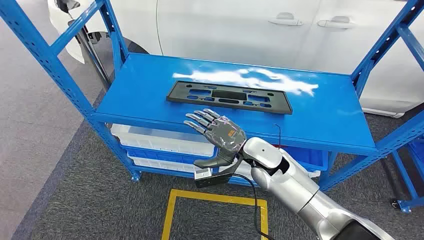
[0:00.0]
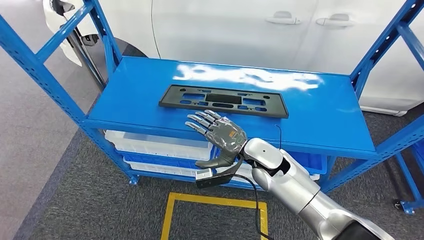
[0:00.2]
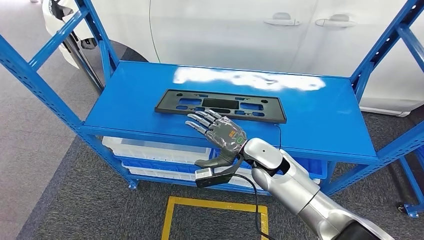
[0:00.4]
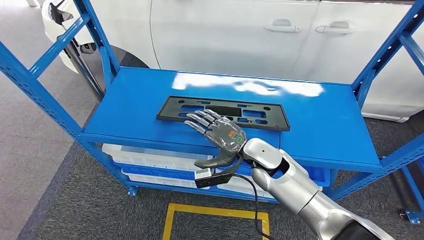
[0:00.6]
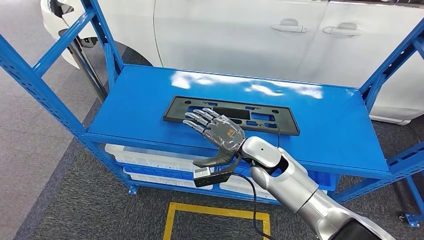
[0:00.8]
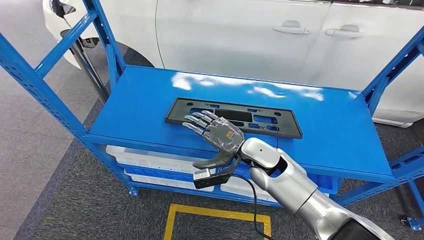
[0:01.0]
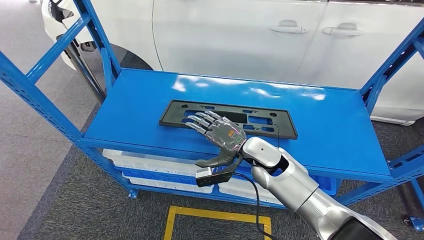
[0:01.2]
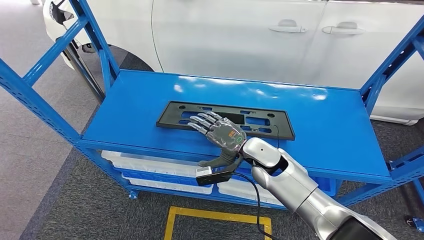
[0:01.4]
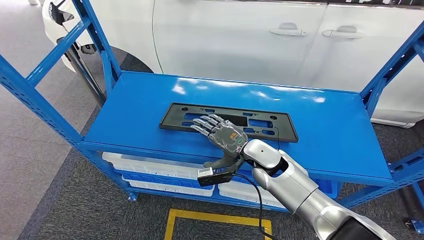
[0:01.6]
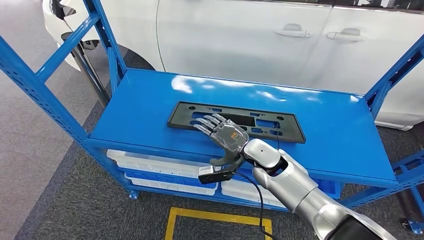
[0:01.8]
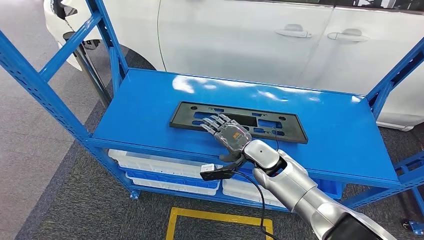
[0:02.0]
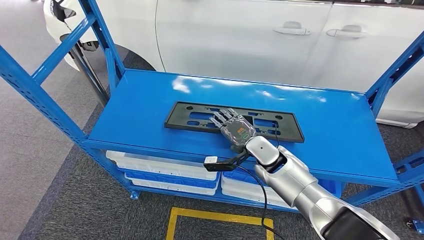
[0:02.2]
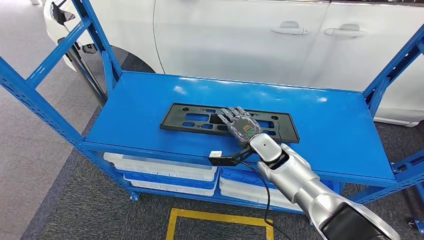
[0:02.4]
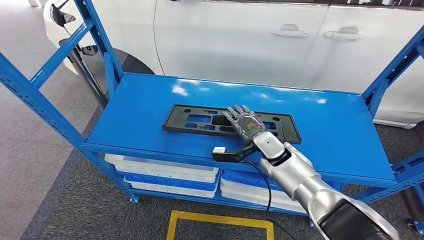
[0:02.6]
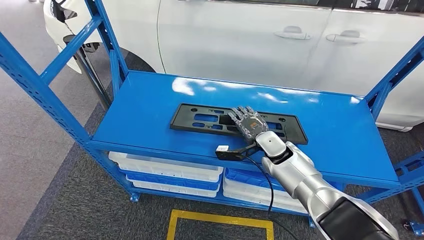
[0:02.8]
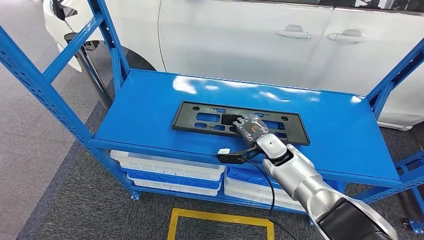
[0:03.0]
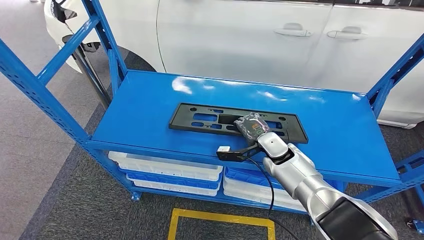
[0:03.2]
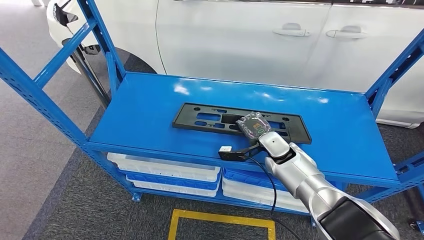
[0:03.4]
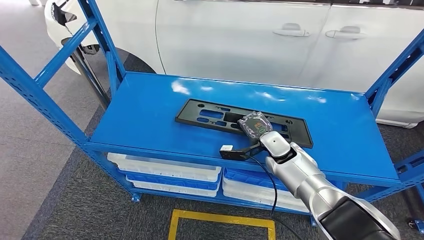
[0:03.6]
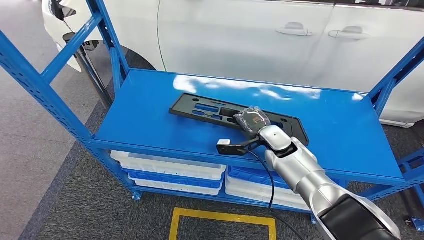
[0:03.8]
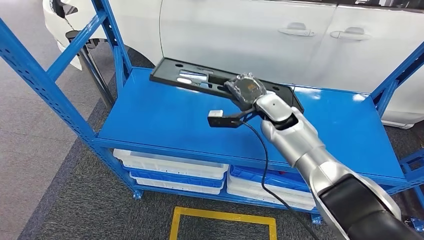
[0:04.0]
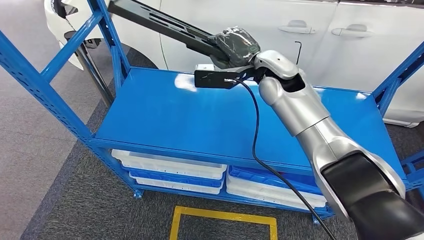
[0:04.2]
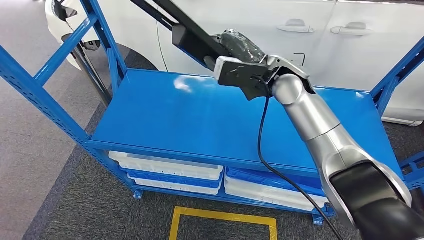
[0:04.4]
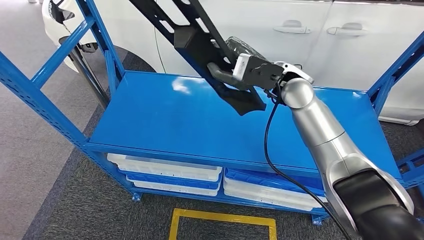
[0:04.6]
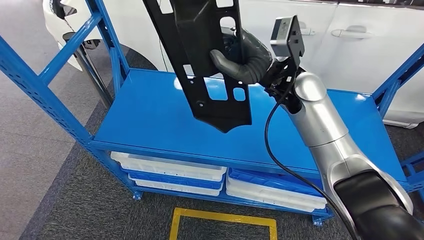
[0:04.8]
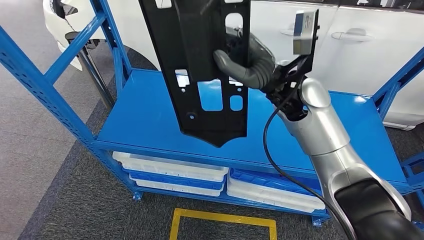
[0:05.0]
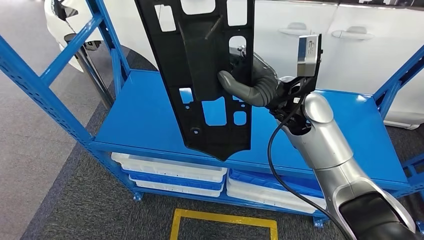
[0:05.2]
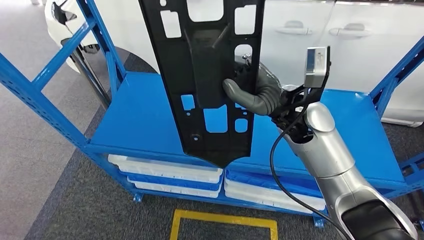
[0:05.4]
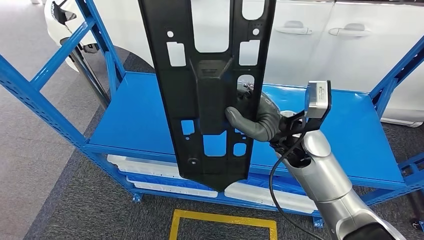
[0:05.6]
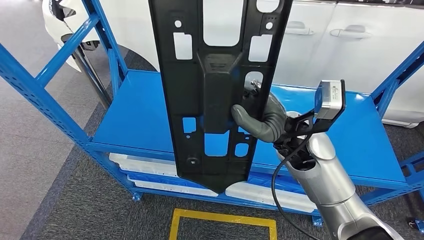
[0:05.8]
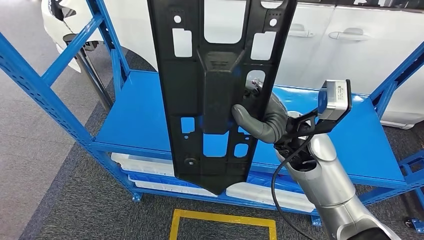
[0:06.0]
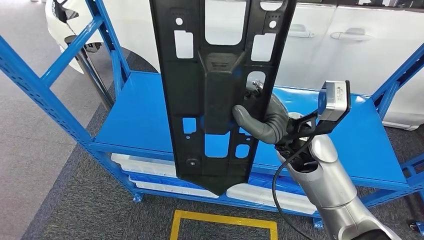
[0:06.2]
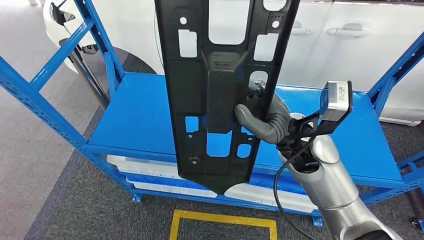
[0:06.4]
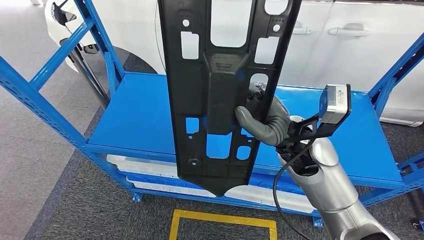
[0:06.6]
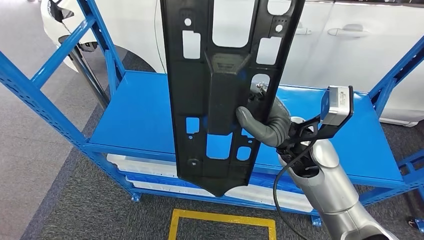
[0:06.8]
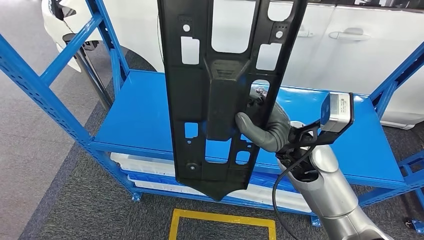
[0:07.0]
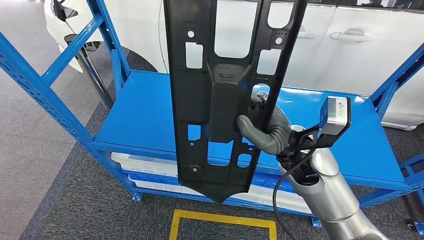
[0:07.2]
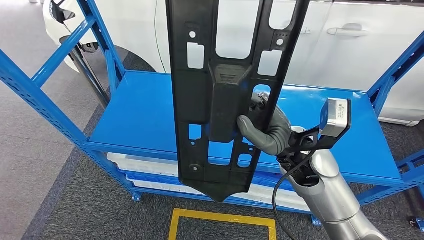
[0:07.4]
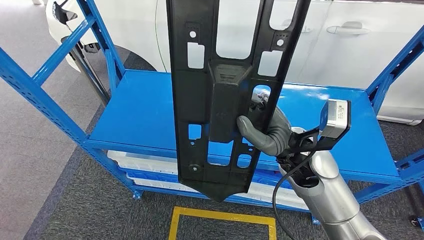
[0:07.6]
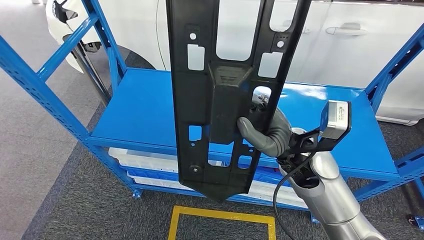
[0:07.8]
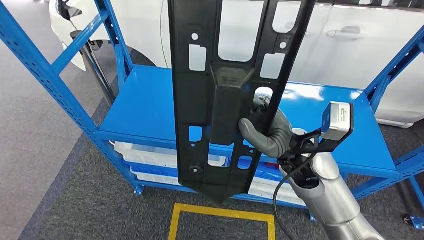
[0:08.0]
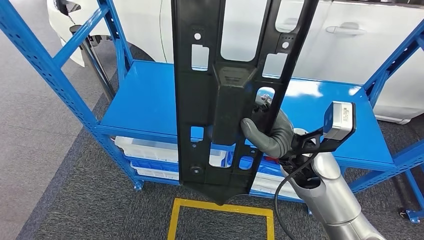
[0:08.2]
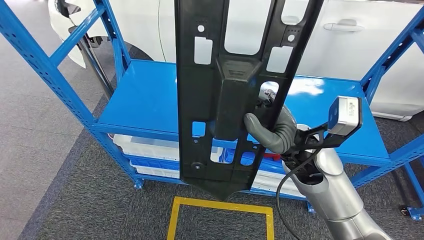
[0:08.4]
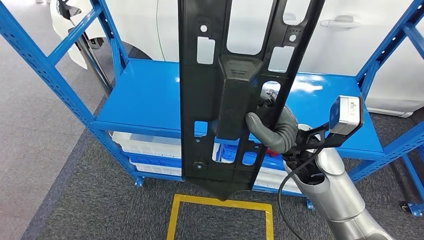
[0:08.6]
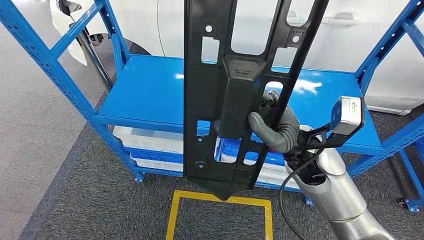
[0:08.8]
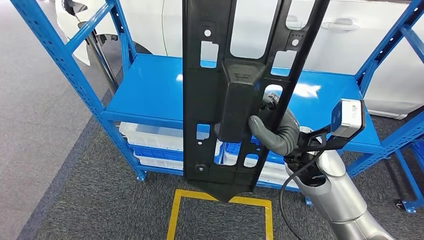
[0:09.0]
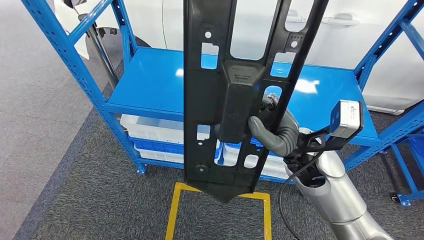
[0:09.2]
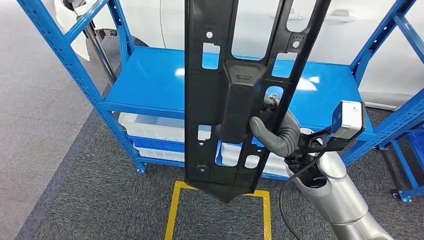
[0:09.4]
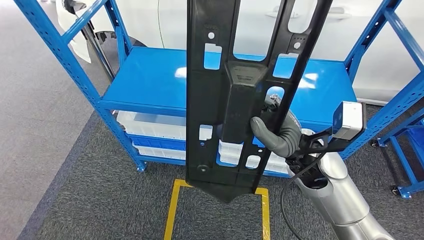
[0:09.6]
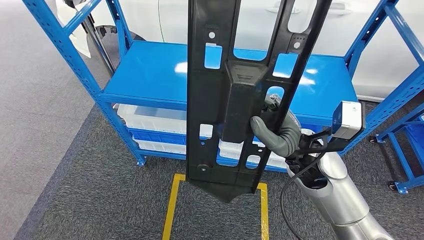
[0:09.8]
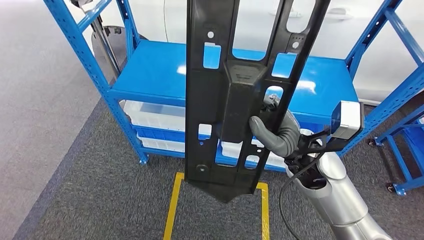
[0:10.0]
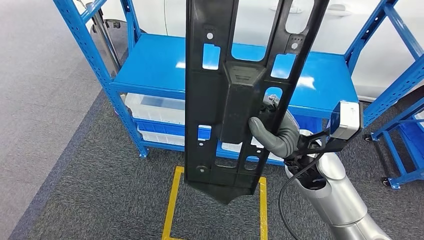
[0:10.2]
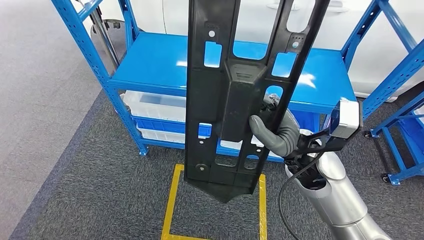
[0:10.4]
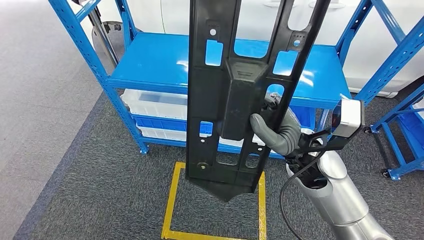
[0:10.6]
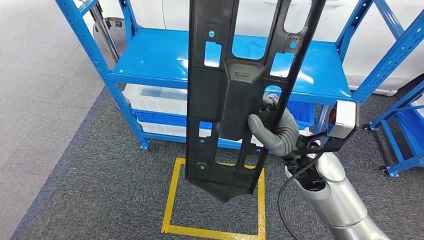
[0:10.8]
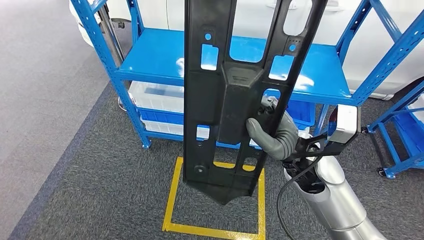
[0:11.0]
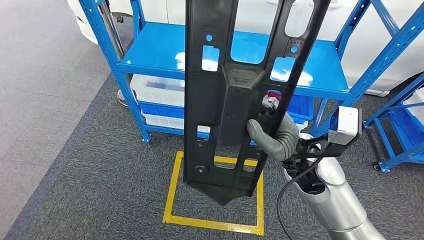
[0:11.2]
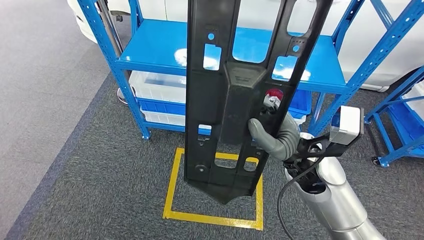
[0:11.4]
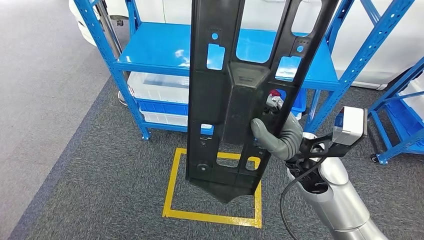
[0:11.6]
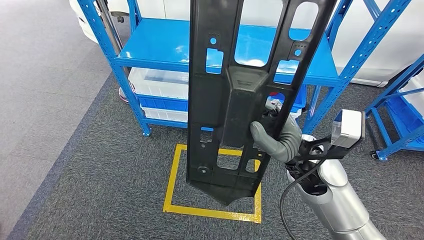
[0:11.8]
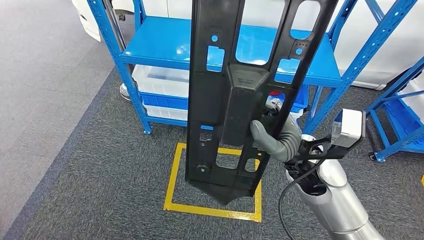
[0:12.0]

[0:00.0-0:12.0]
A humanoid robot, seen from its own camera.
Step, 0:00.0 to 0:04.8: Pick up the large material from the shelf.

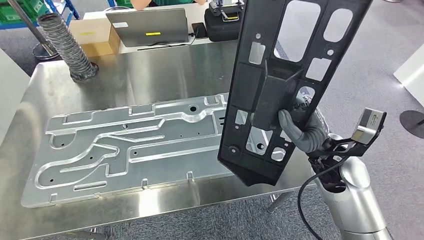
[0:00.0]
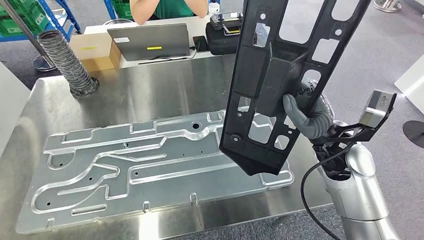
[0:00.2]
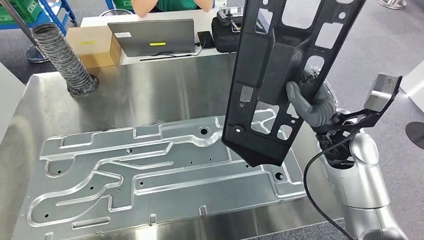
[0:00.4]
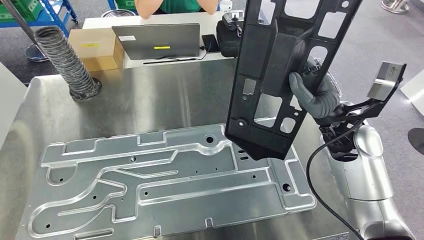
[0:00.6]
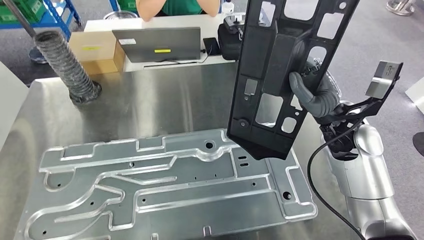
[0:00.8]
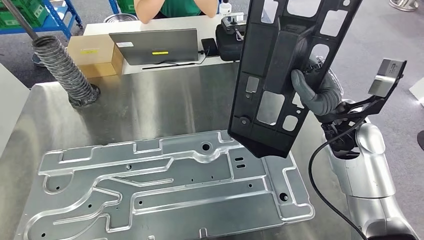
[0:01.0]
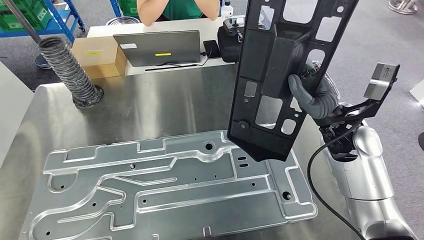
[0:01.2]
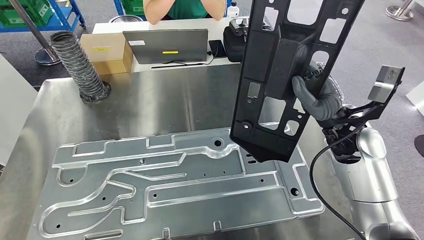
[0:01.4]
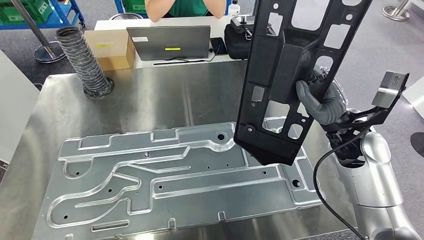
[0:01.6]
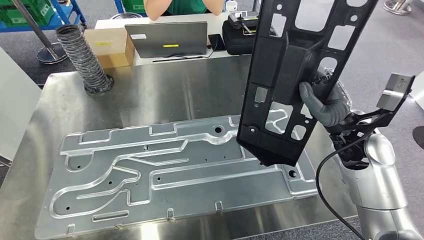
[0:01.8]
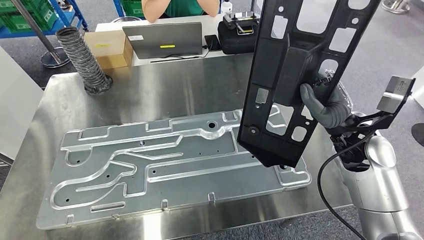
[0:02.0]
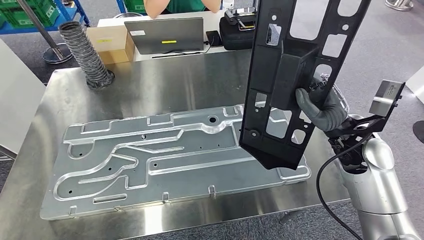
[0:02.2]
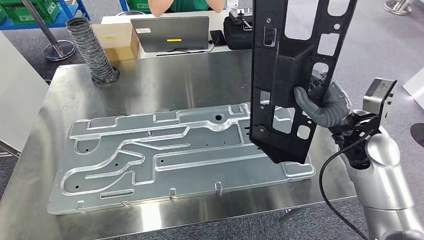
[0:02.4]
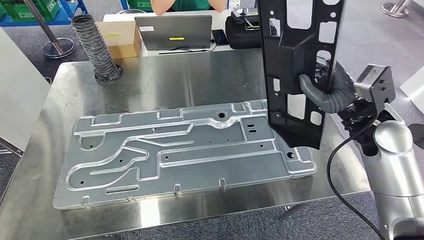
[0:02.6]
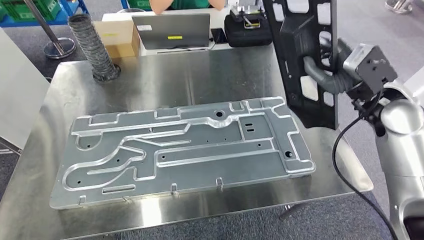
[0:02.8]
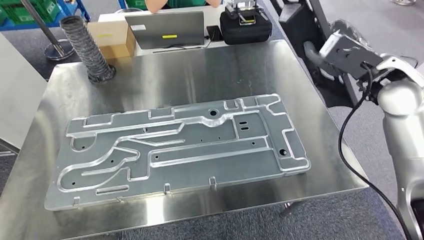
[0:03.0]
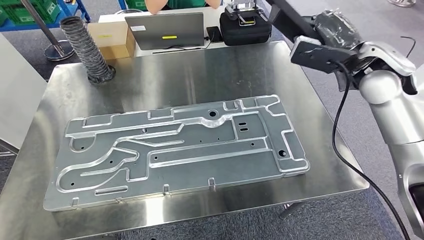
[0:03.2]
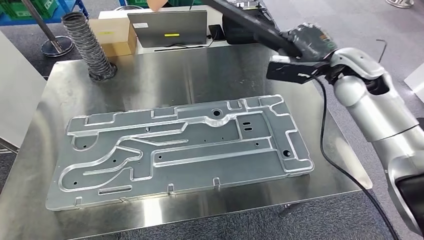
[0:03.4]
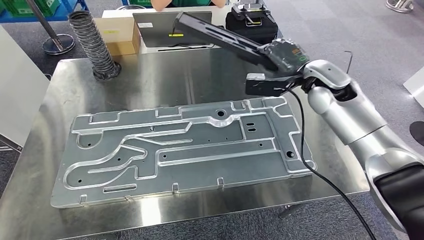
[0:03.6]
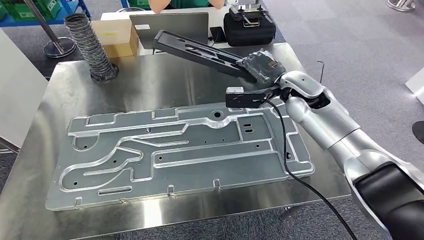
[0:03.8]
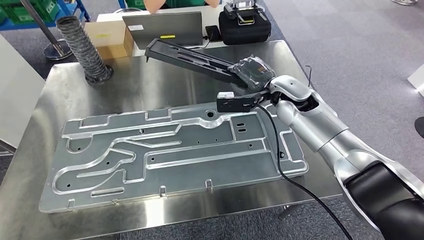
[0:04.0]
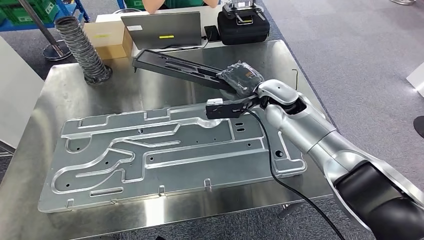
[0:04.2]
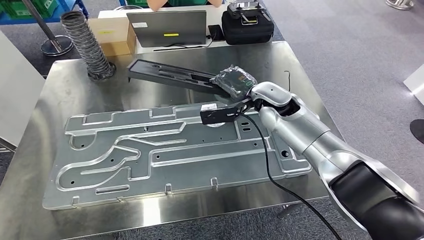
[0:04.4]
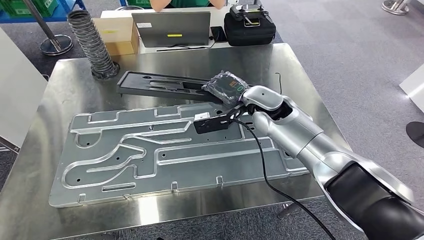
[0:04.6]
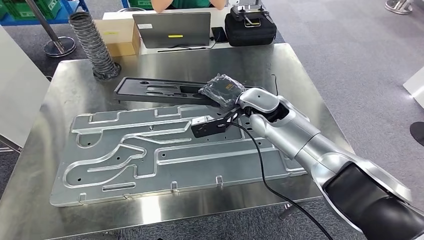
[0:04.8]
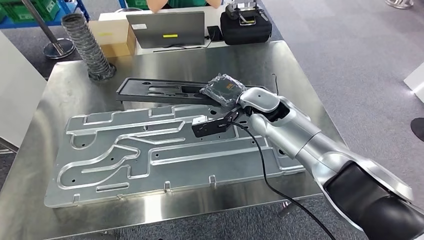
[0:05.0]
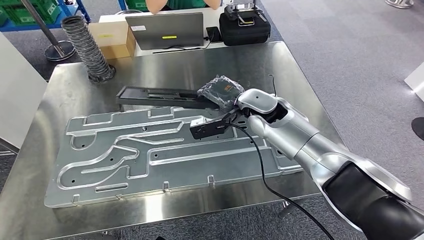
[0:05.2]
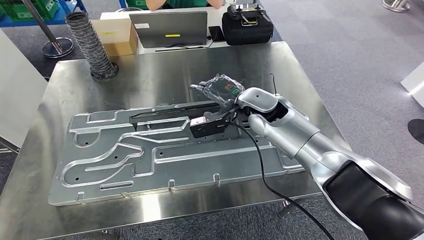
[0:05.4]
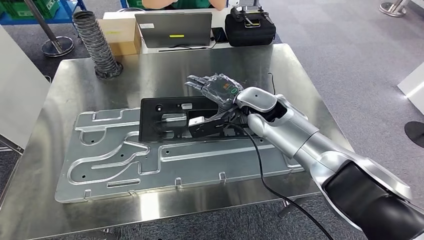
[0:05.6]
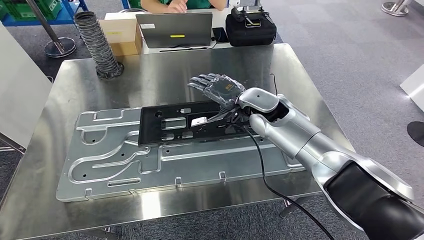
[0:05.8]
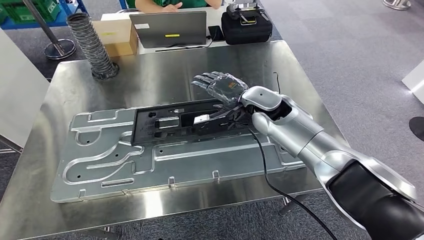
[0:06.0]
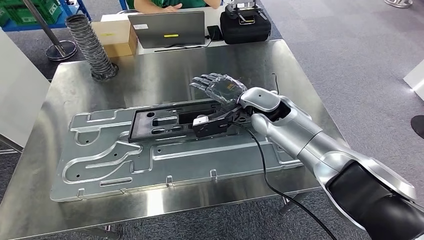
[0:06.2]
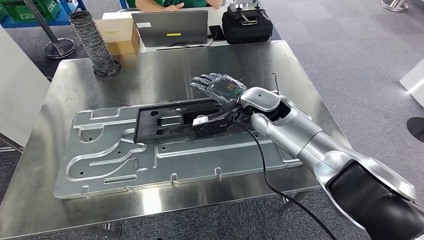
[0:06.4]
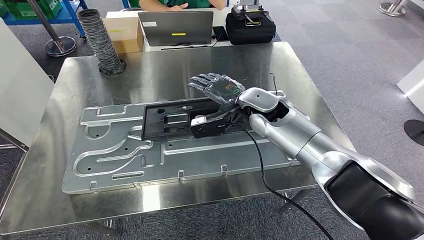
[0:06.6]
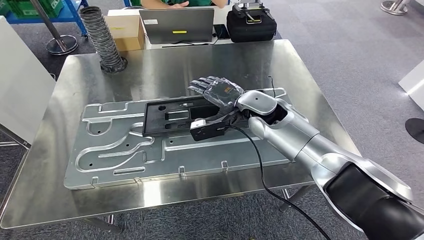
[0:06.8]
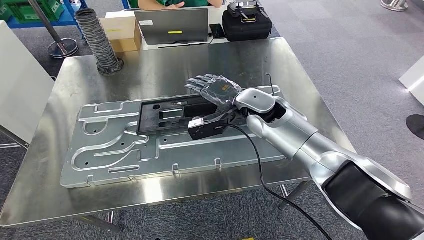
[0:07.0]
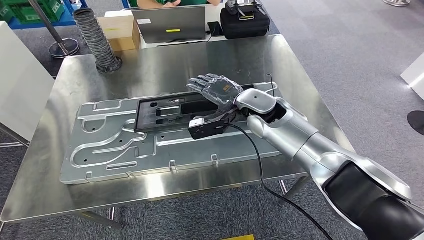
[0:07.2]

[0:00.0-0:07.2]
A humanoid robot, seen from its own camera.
Step, 0:02.8 to 0:07.2: Insert the large material into the corresponding slot on the workbench.
